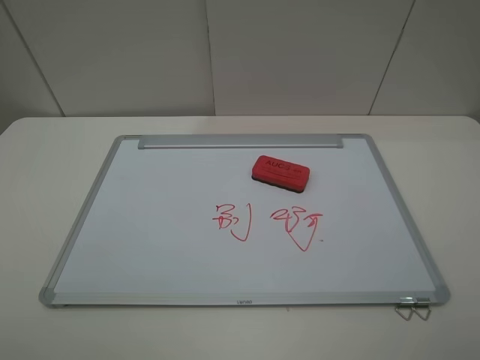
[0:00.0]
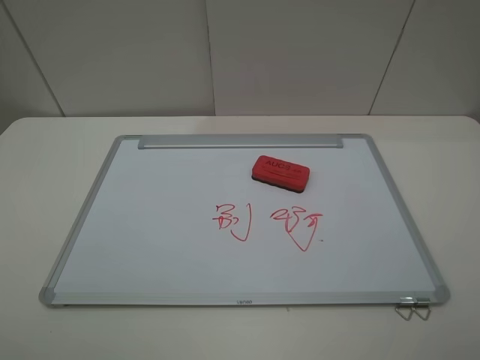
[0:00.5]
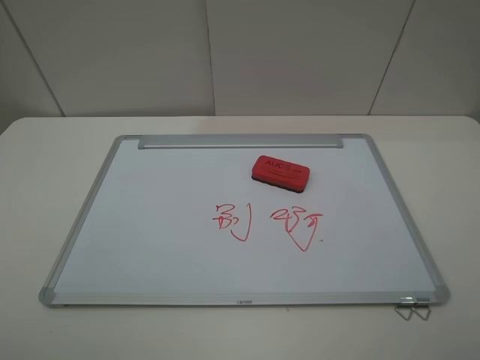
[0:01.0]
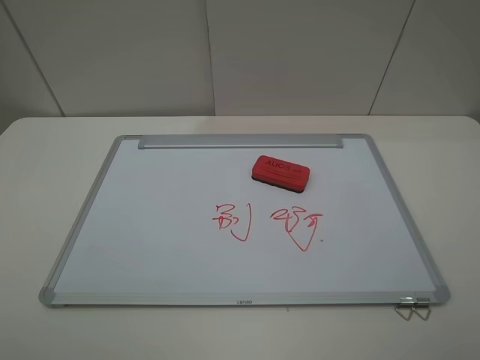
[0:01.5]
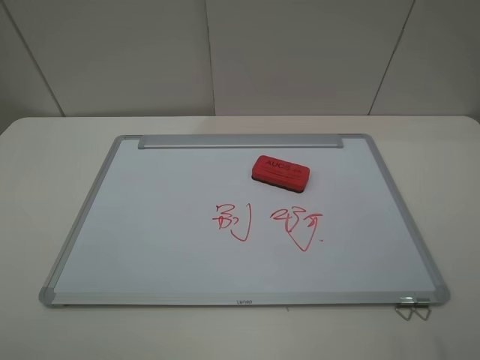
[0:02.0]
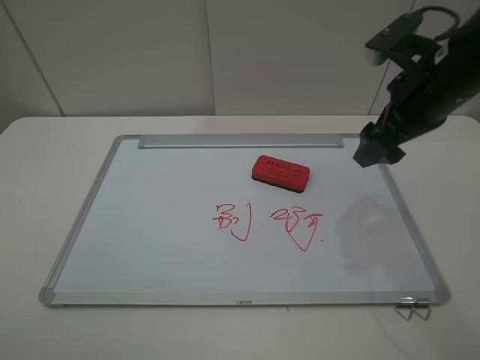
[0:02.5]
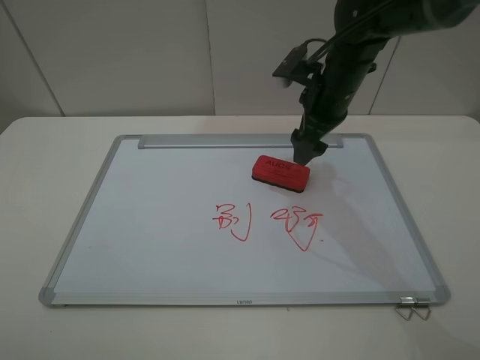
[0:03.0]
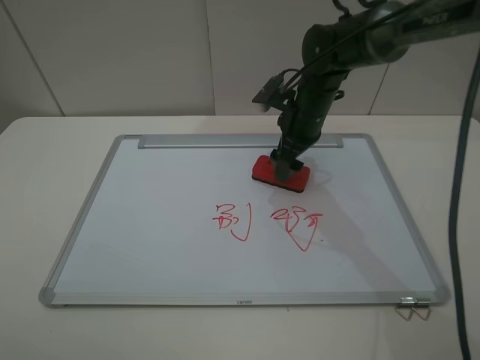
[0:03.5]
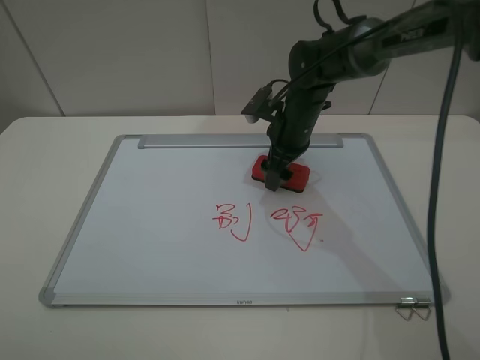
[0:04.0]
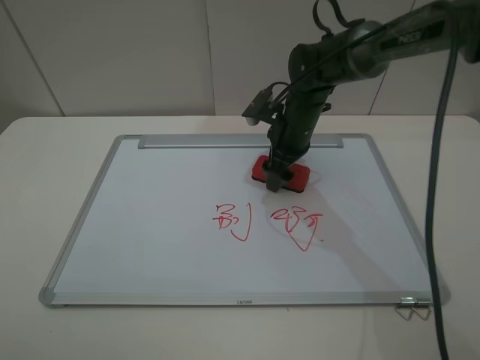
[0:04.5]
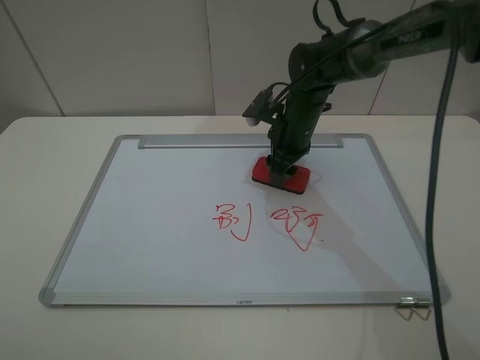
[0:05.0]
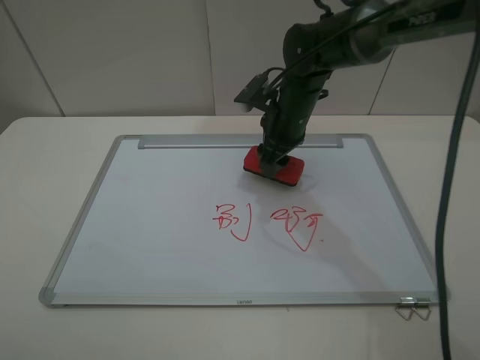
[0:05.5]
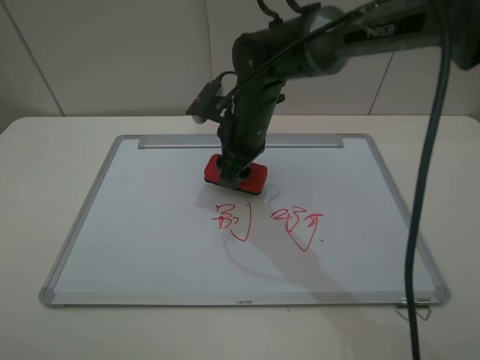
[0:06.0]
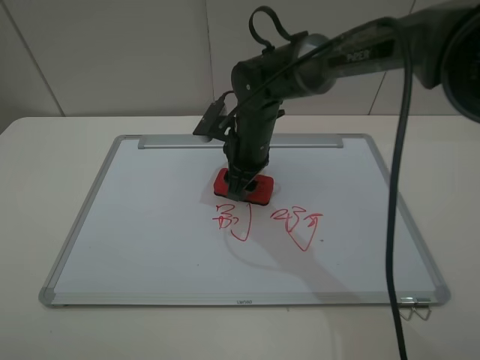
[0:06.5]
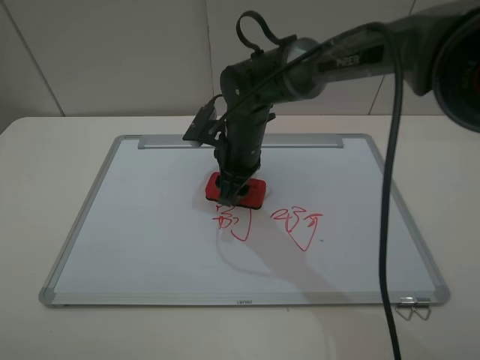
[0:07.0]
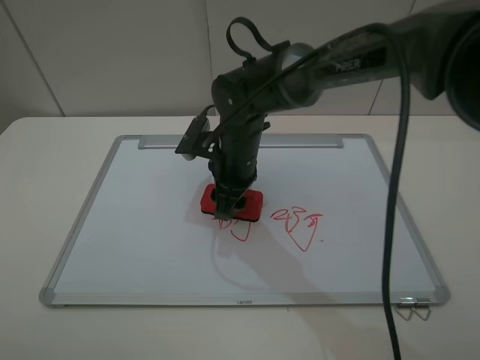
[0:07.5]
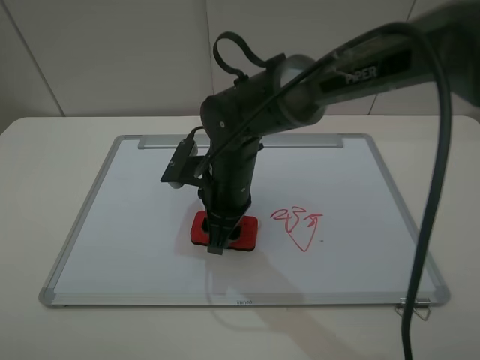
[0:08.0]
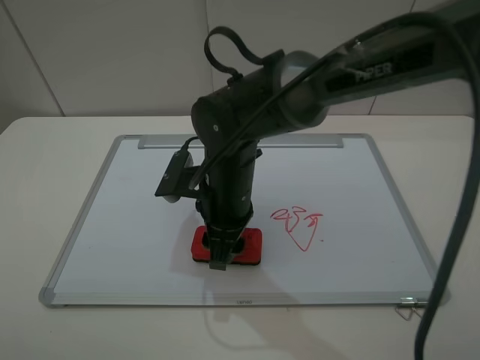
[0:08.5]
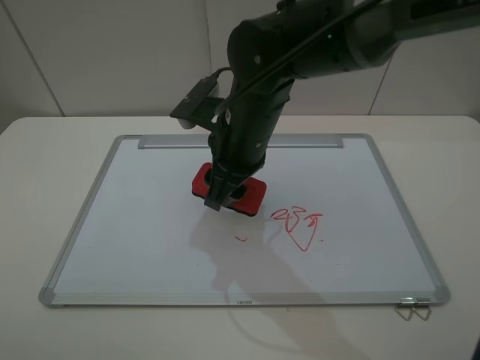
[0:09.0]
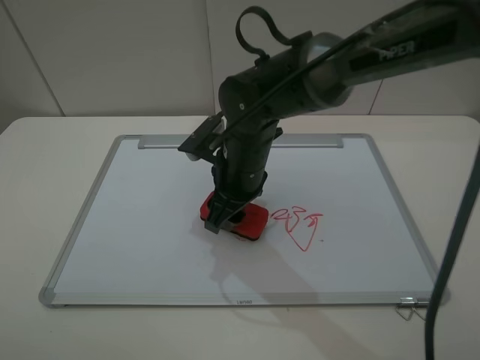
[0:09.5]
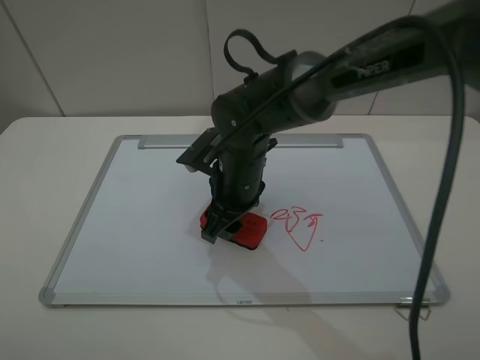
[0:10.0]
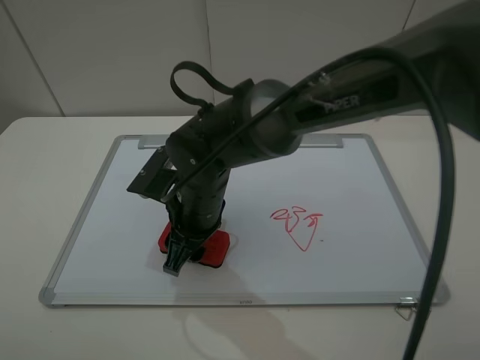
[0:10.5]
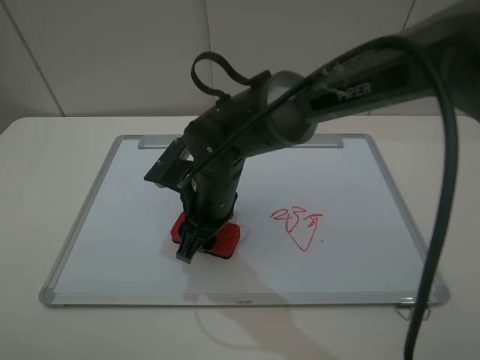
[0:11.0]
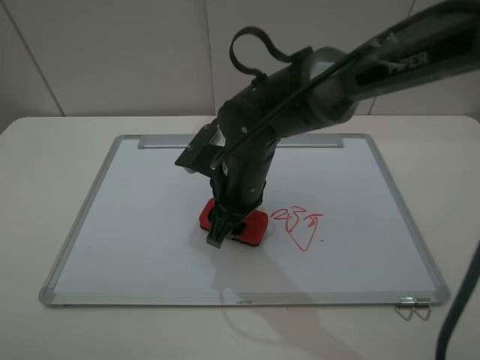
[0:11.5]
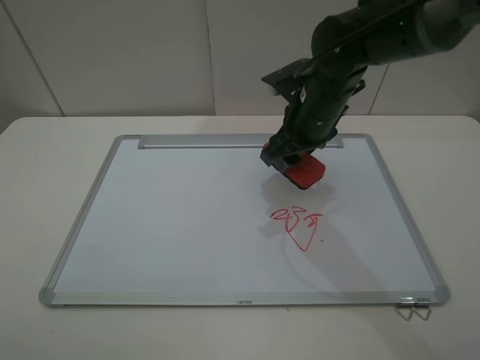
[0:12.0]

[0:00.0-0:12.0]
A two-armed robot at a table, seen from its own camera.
Step, 0:00.0 to 0:05.0: Grasp the eraser with the right gripper.
Step, 0:05.5 to 0:11.5: Grasp the eraser and wipe the blackboard with the right gripper.
0:02.0 to 0:04.0: The right gripper shifts approximately 40 cm forward, to the left and downward.
0:04.0 to 0:06.0: The right gripper moves to the left, some 10 cm, and closes its fingers.
0:06.0 to 0:08.0: The right gripper goes some 10 cm backward.
0:08.0 to 0:10.0: The right gripper moves approximately 10 cm upward and comes back.
0:10.0 to 0:12.0: The right gripper travels to the right, upward and forward by approximately 15 cm.

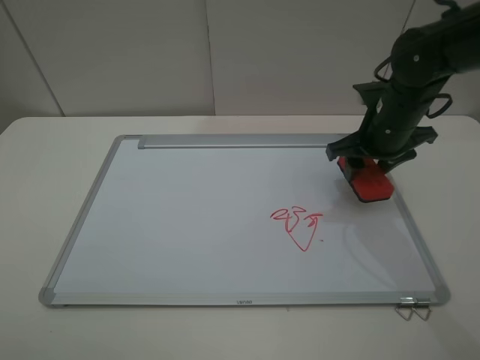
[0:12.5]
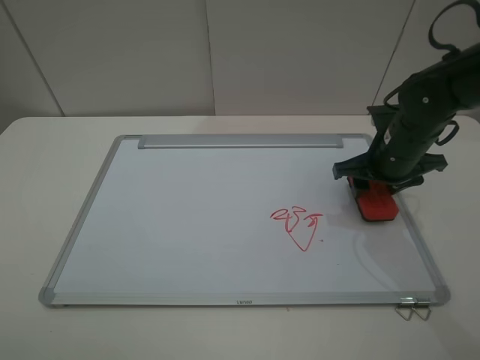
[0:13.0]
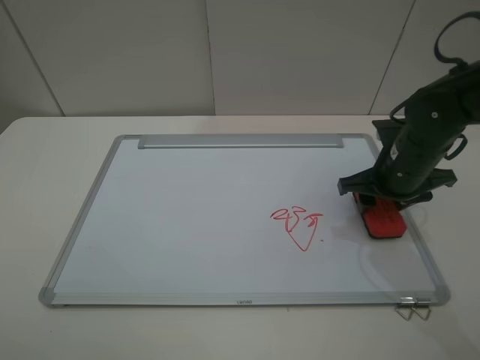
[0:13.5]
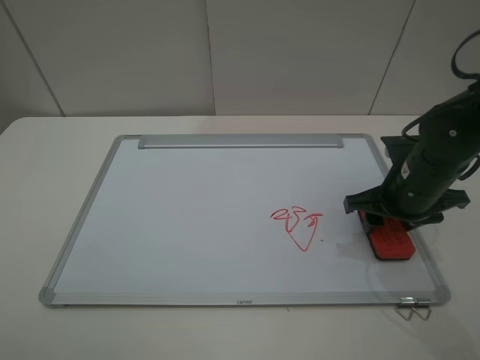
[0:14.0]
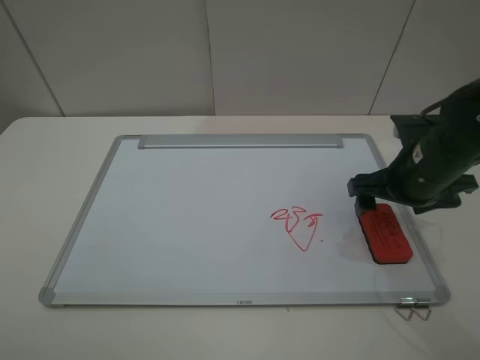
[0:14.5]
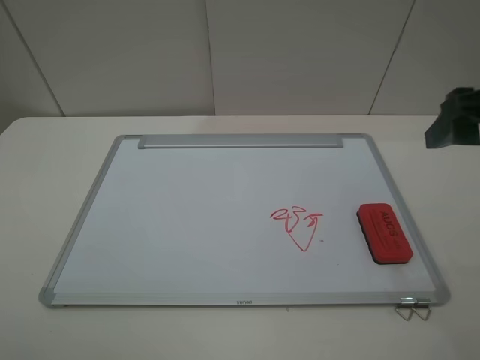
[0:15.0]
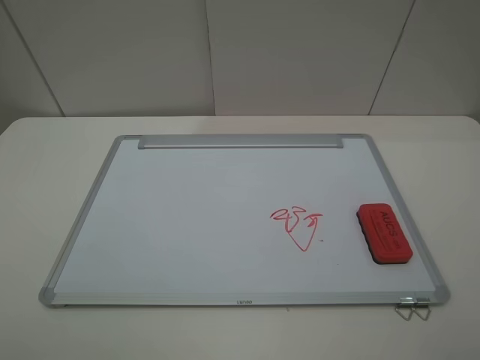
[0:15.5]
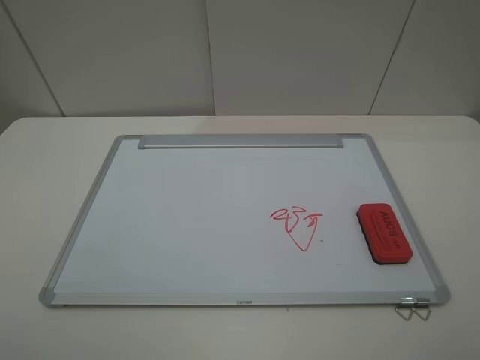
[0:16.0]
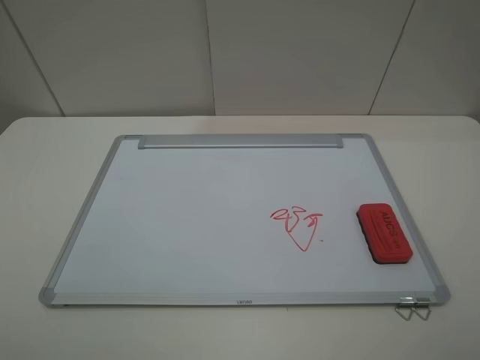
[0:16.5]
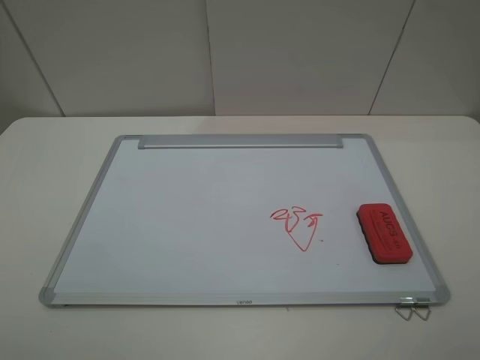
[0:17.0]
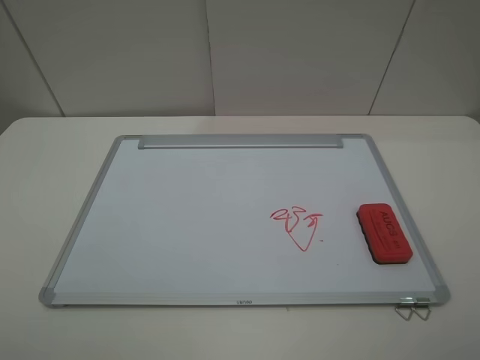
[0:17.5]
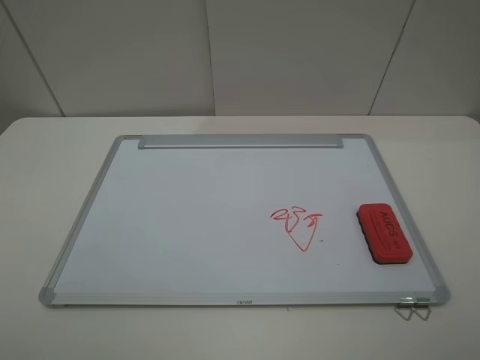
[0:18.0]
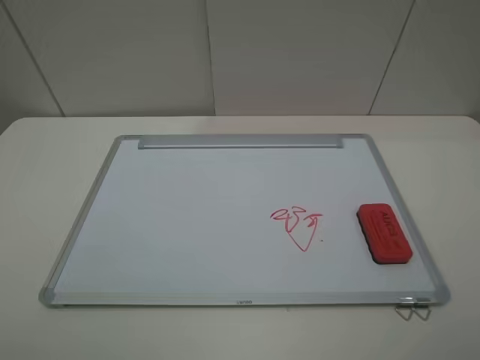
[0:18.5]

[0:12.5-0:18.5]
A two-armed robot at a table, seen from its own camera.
Step, 0:12.5 to 0:14.5: Place the eraser with the right gripper.
0:12.5 to 0:14.5: The right gripper is displaced backward by roughly 10 cm, and opens its fingers.
0:14.5 to 0:16.5: The right gripper travels backward and upward by approximately 30 cm.
